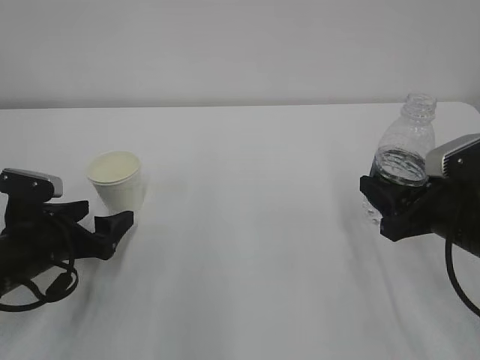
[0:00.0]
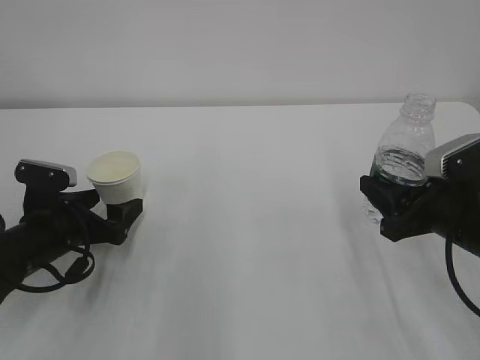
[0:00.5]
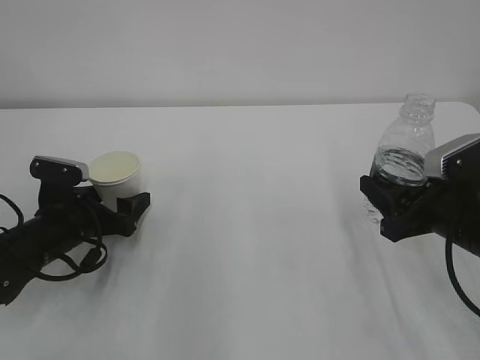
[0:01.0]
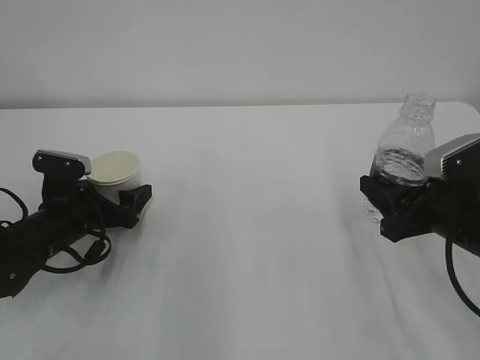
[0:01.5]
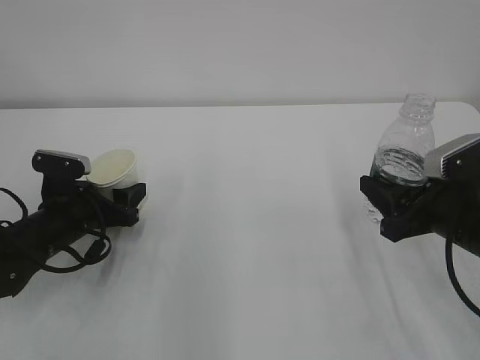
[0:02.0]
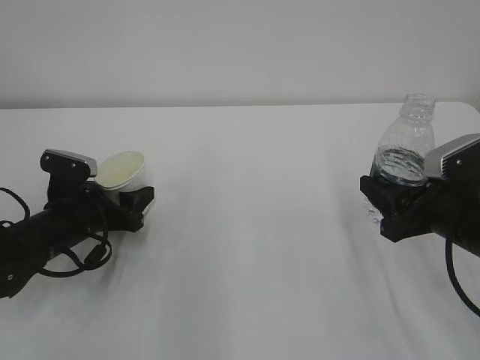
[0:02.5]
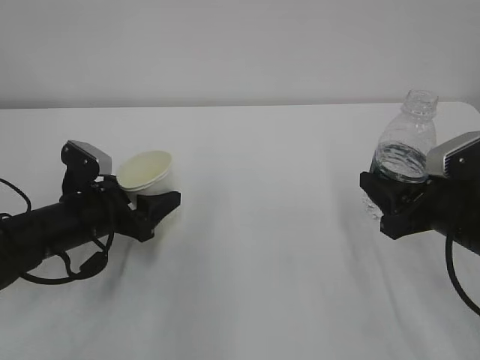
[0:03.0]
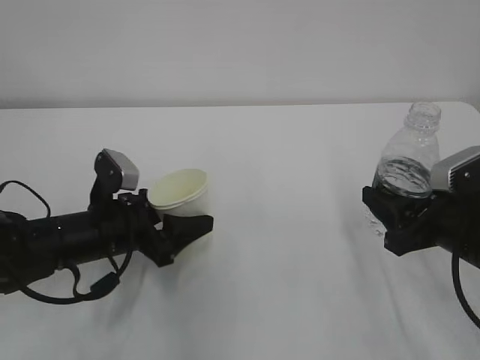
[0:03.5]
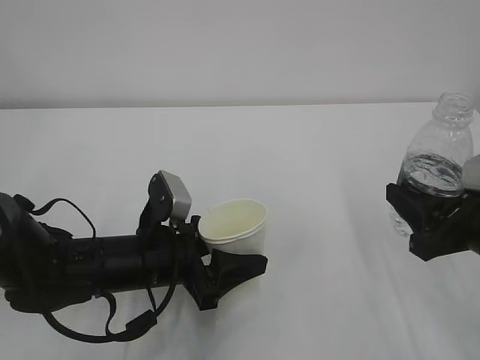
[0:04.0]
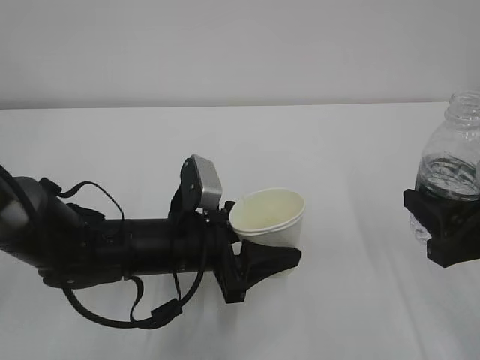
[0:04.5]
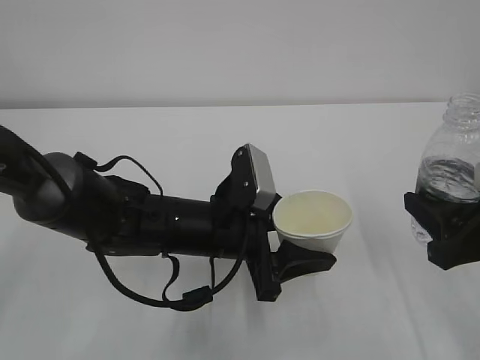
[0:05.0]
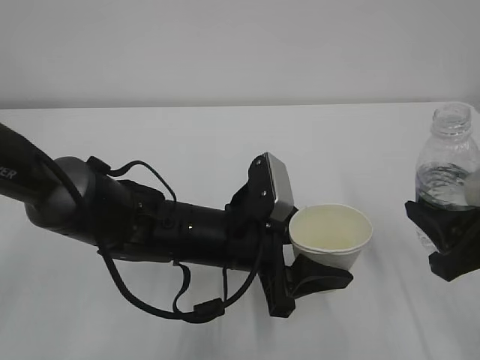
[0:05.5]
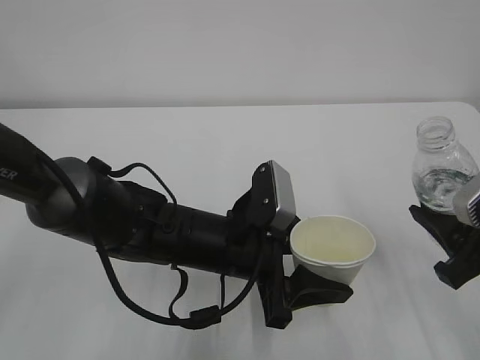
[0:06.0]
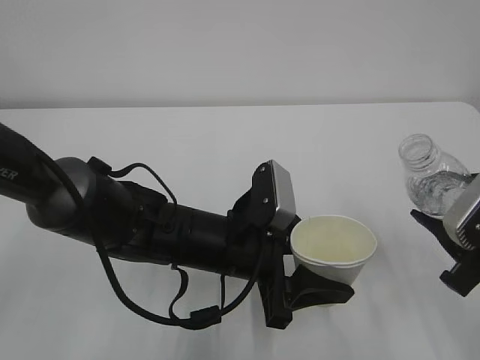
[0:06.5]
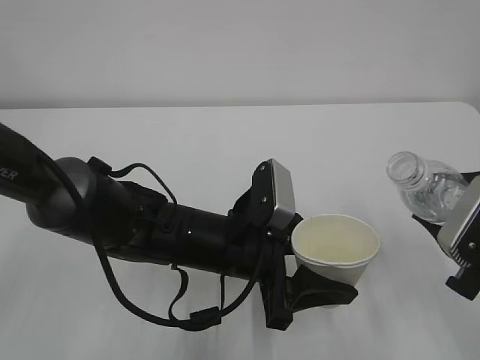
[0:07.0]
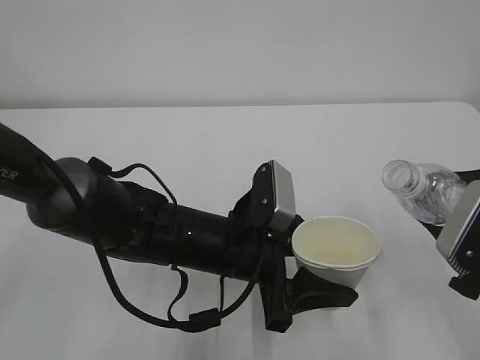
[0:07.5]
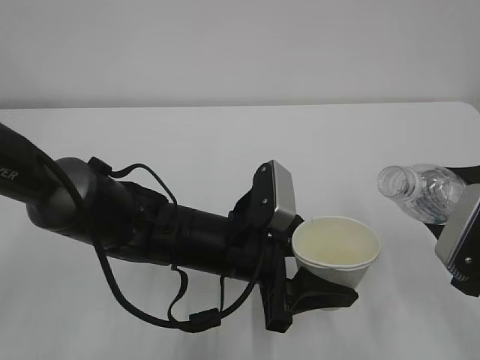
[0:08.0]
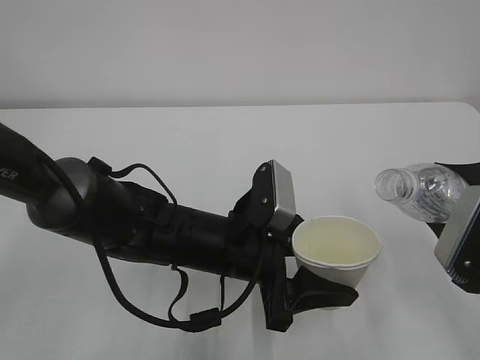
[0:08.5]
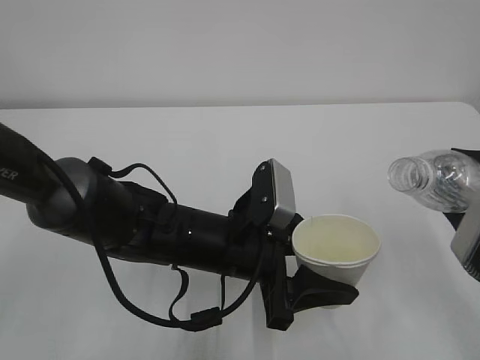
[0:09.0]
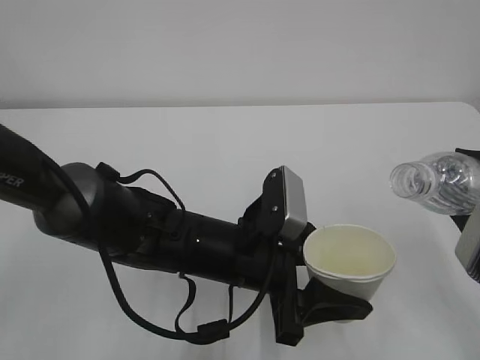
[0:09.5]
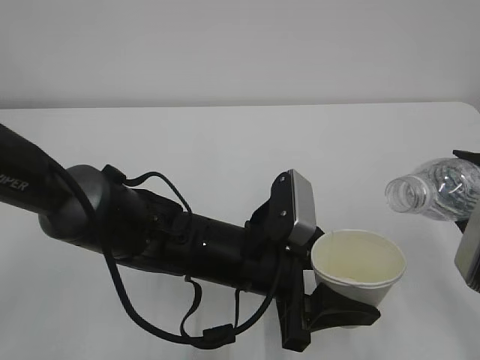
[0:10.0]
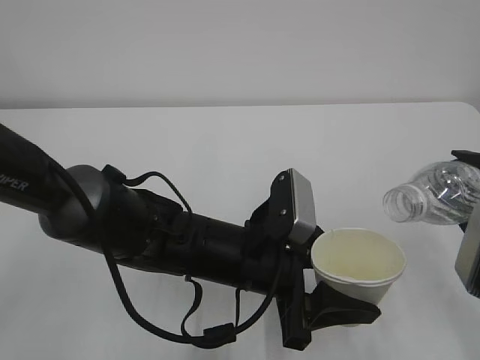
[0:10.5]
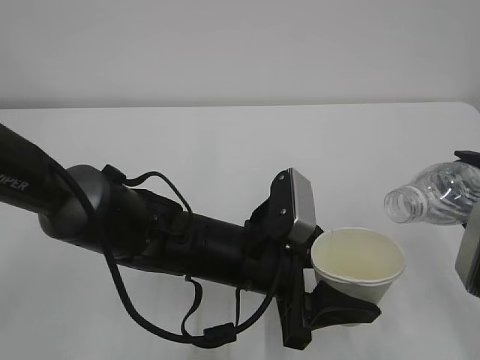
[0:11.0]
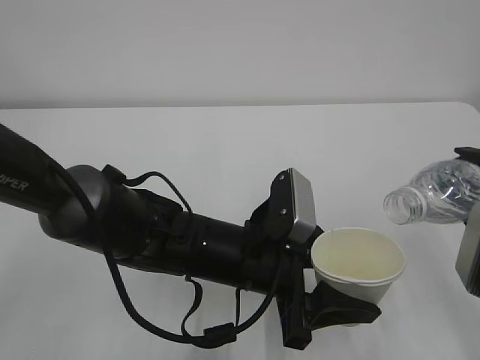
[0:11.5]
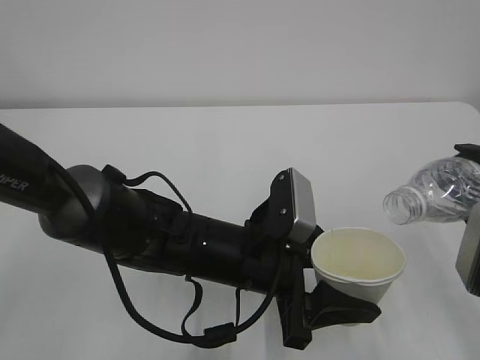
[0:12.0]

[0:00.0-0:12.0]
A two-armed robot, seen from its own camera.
0:00.0 to 0:02.0: The left gripper travels forward by some 5 cm, and closes its fingers.
0:02.0 to 0:04.0: The left gripper goes approximately 15 cm to the right and backward. Meanwhile the right gripper shifts by about 5 cm.
0:04.0 to 0:06.0: The left gripper travels to the right by approximately 10 cm.
0:08.0 to 0:10.0: The grippers stay close to where they were, moving slightly.
0:10.0 to 0:12.0: The grippers make only small movements.

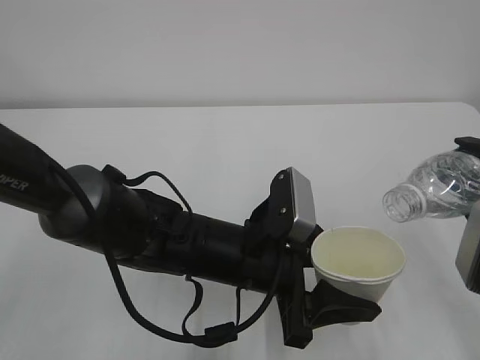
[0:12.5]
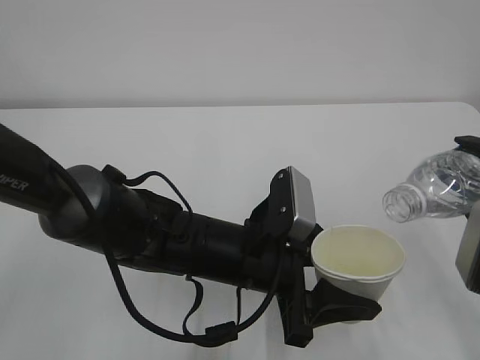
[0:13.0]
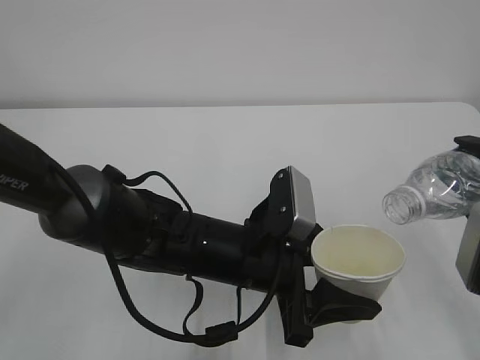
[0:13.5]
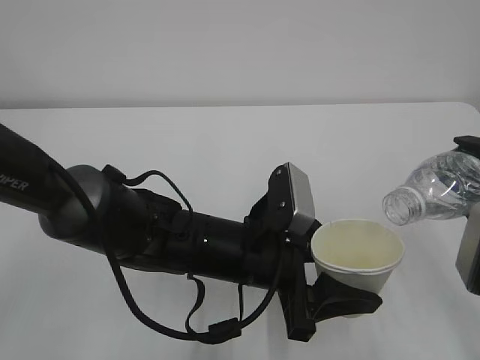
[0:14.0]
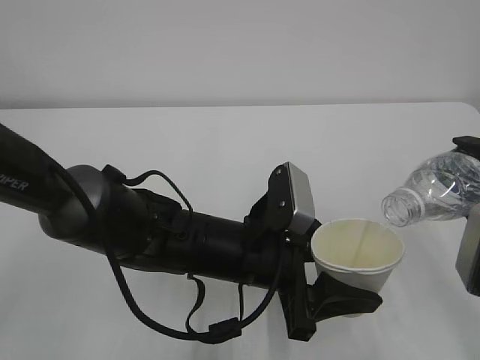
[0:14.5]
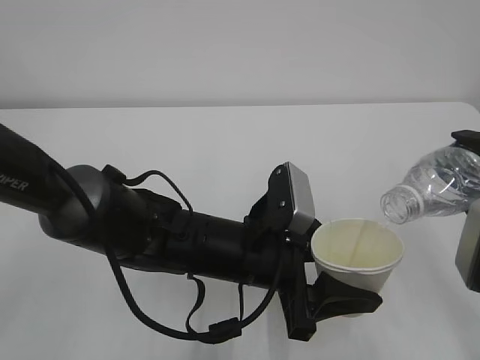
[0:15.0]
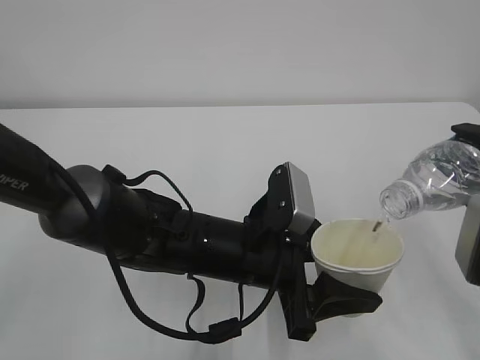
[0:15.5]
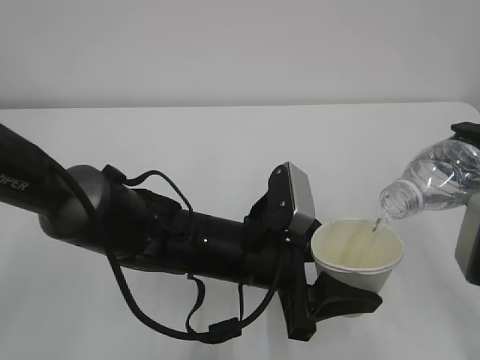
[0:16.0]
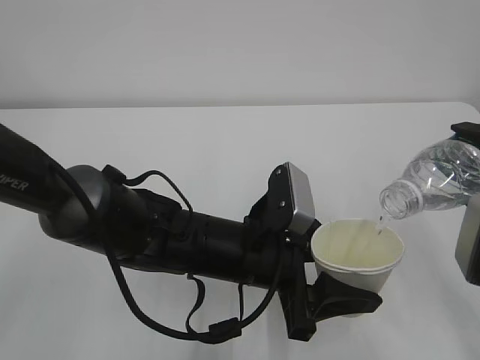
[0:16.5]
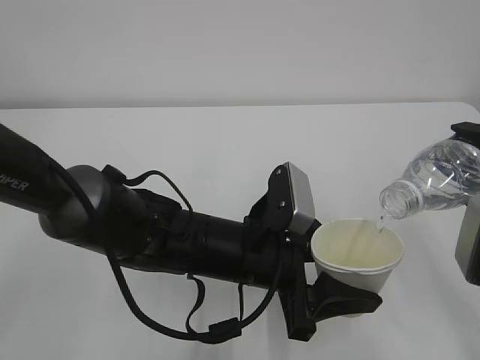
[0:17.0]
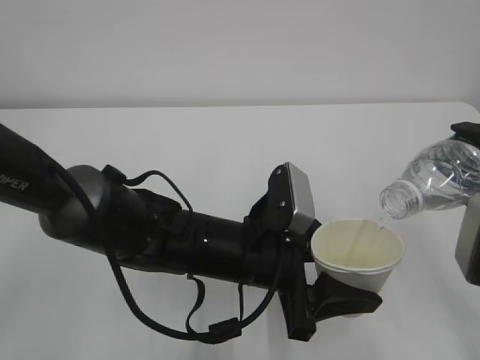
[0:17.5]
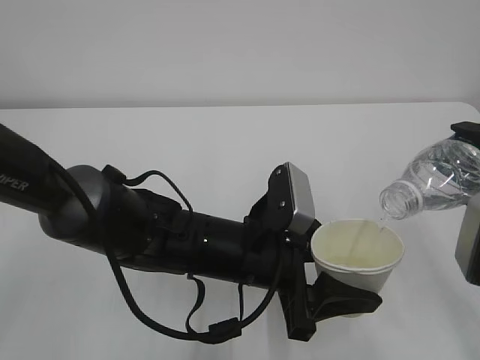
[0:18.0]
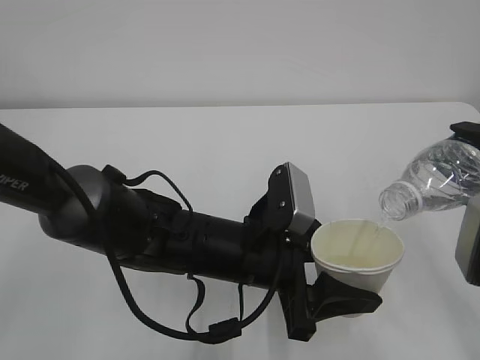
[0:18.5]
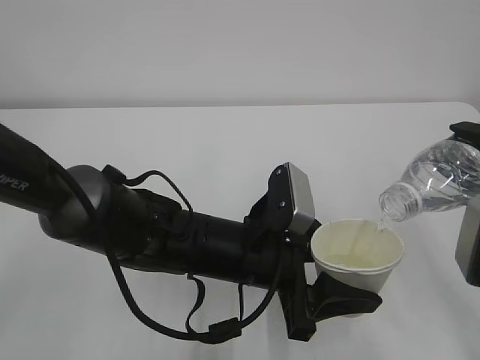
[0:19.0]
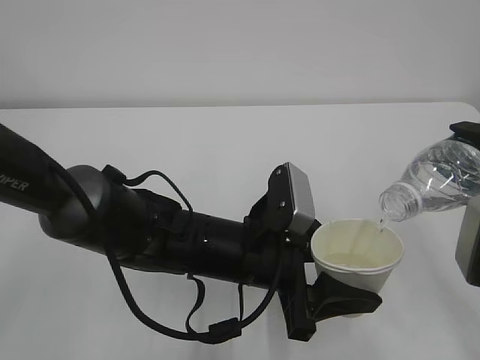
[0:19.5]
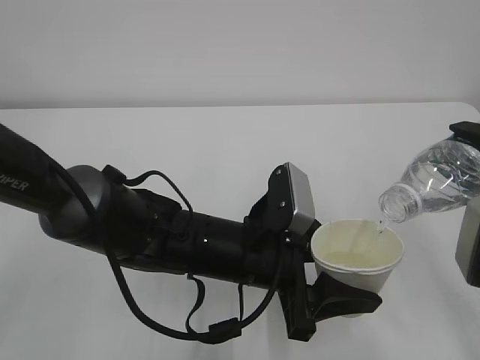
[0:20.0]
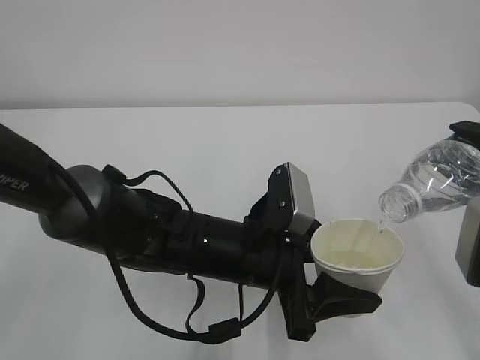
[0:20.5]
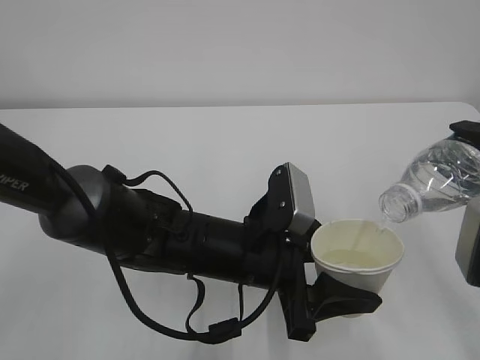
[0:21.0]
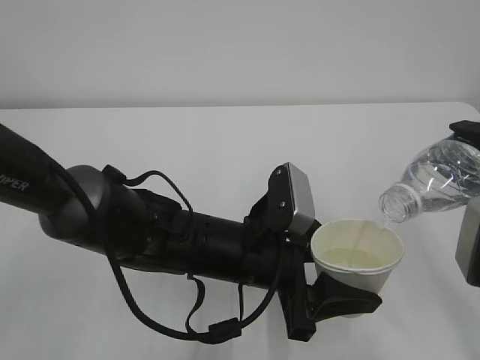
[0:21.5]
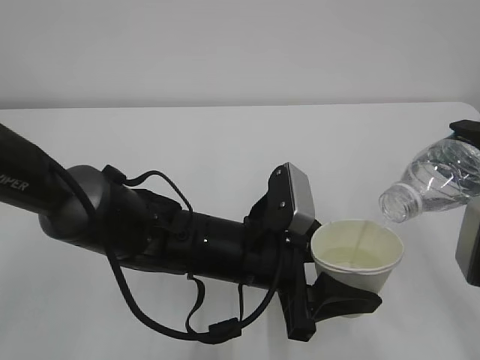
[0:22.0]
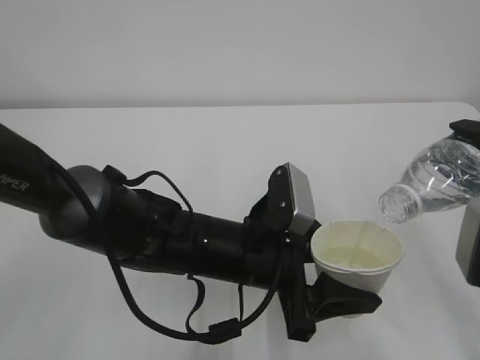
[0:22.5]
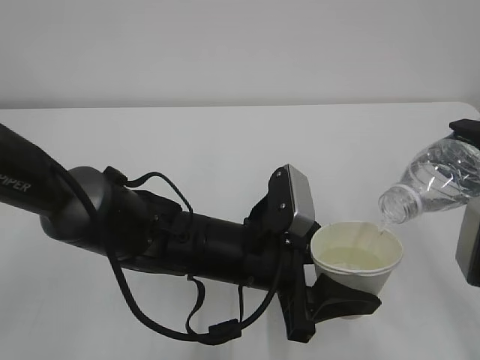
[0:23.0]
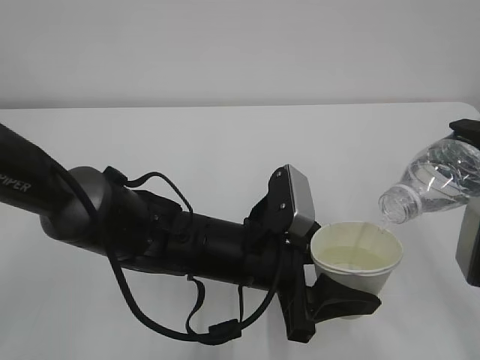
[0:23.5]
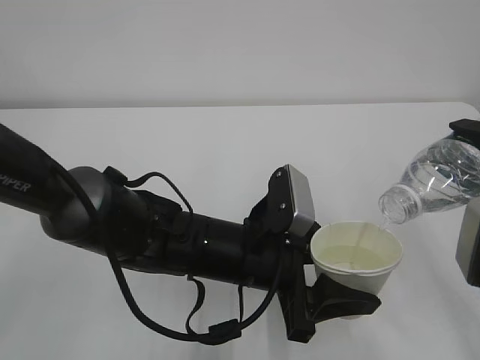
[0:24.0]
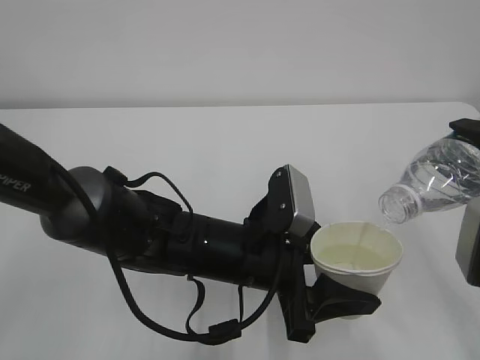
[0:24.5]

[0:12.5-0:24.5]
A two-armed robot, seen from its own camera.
0:12.5 to 0:14.5: Both grippers stay about where they are.
0:14.5 to 0:18.5: Both grippers stay about where they are.
0:18.5 to 0:24.5: Neither gripper changes place.

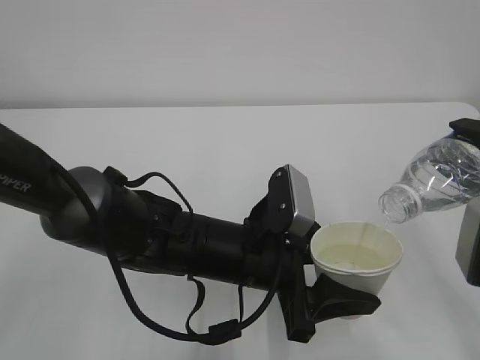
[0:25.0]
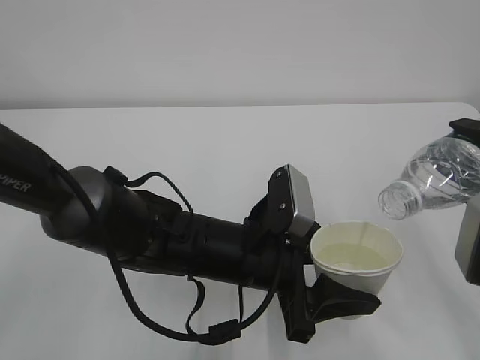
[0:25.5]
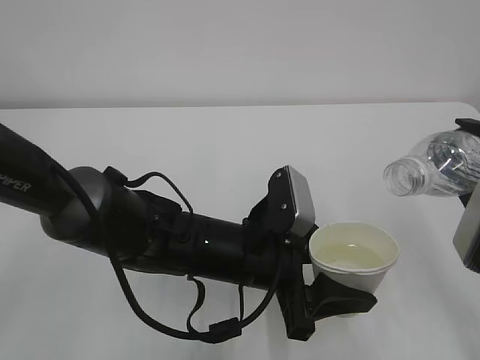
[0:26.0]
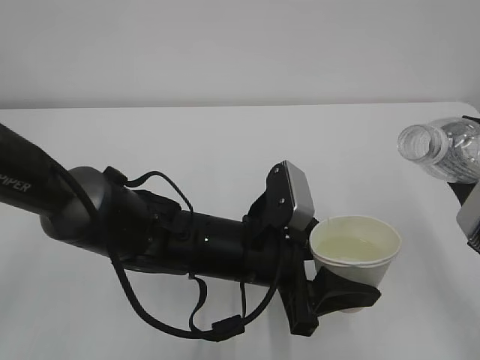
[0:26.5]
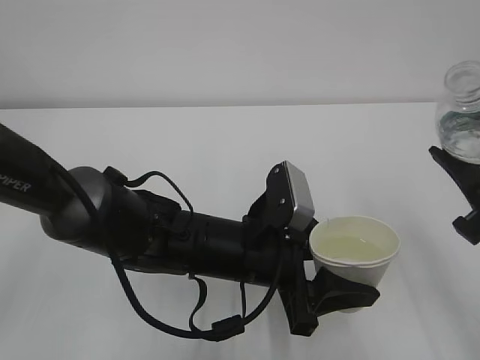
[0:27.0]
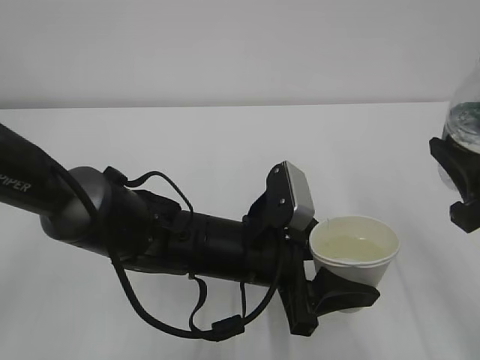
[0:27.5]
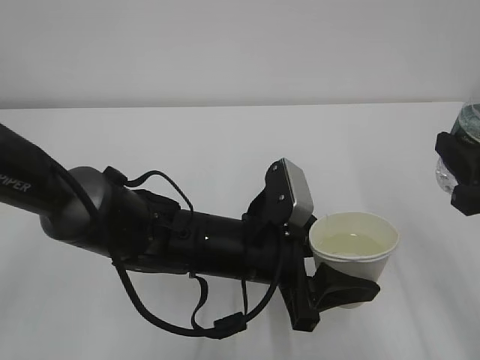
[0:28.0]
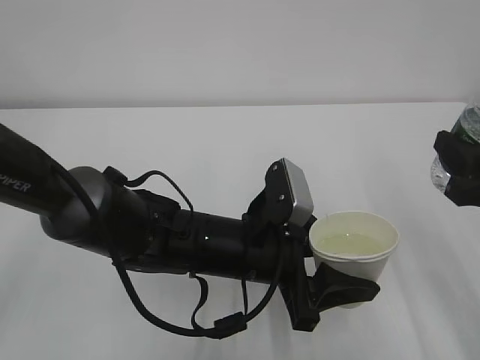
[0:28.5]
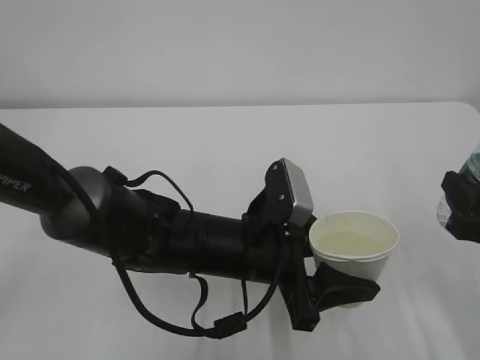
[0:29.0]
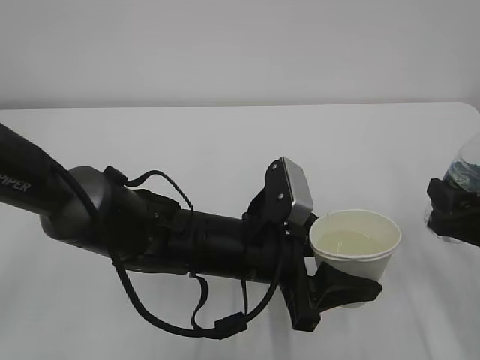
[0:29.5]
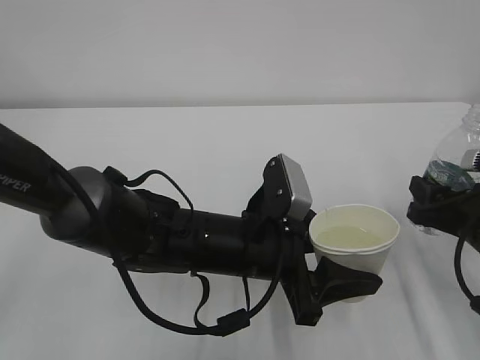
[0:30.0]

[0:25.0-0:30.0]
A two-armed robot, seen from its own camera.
0:27.5 to 0:30.0: The right gripper is displaced downward and forward by roughly 15 cm.
